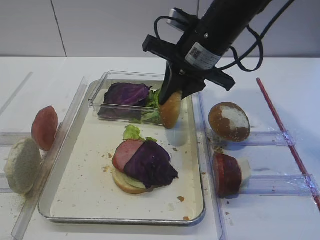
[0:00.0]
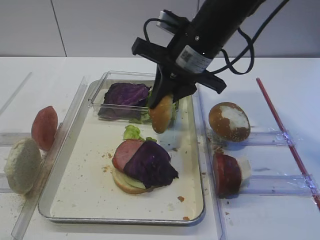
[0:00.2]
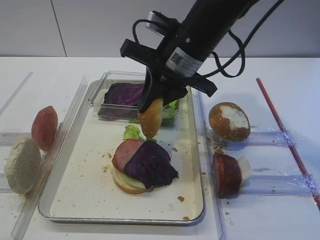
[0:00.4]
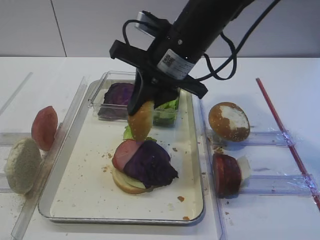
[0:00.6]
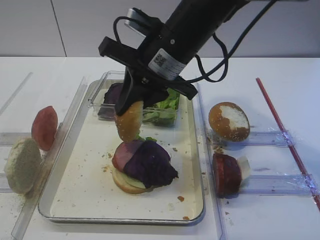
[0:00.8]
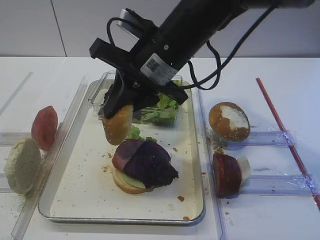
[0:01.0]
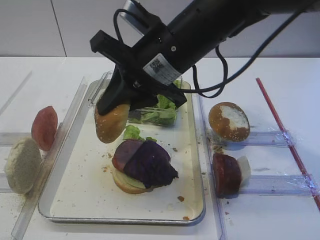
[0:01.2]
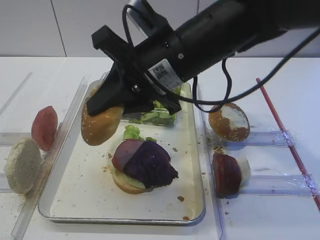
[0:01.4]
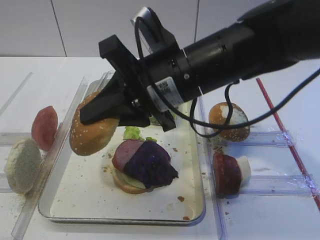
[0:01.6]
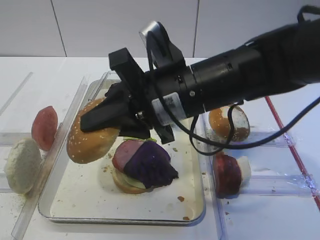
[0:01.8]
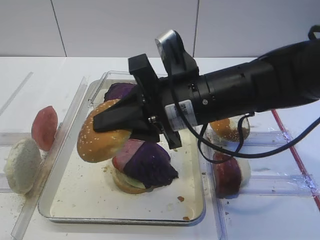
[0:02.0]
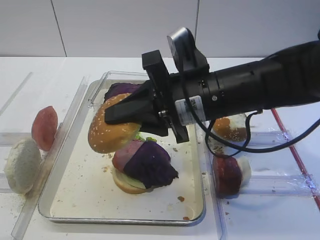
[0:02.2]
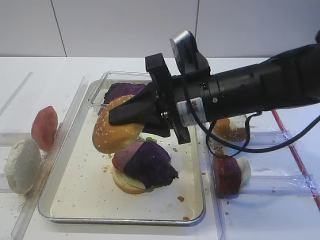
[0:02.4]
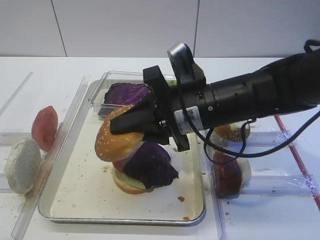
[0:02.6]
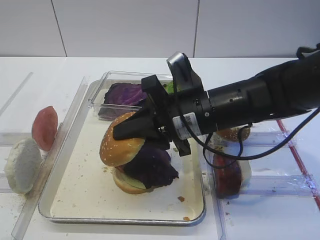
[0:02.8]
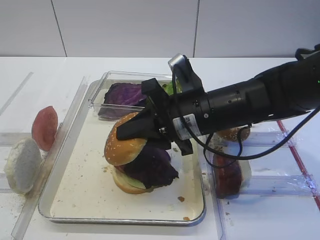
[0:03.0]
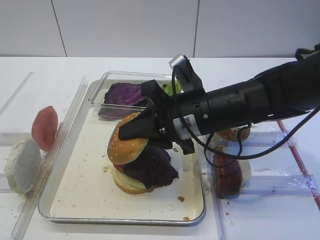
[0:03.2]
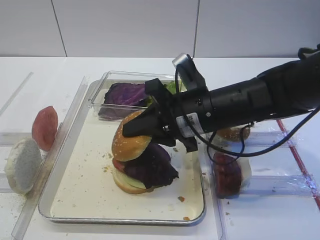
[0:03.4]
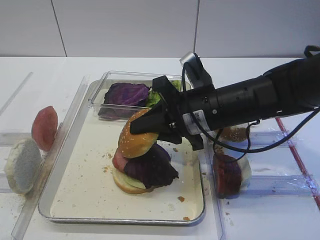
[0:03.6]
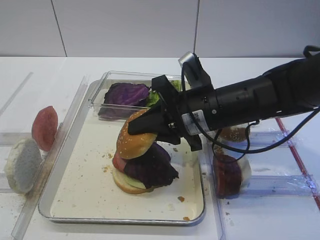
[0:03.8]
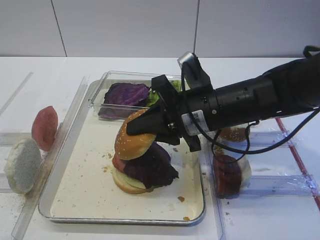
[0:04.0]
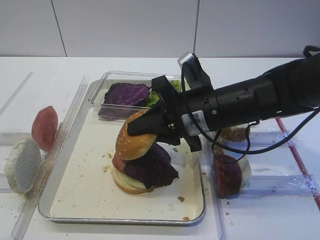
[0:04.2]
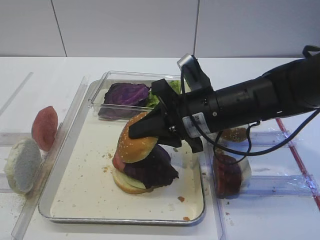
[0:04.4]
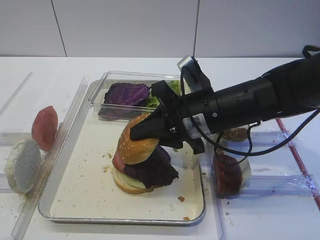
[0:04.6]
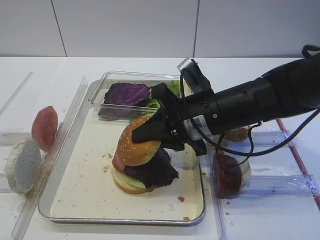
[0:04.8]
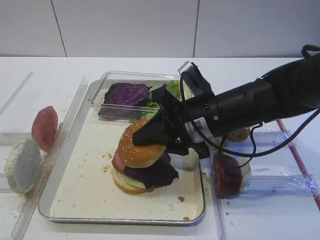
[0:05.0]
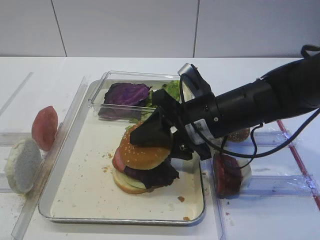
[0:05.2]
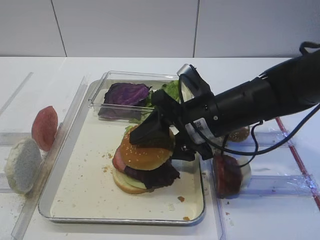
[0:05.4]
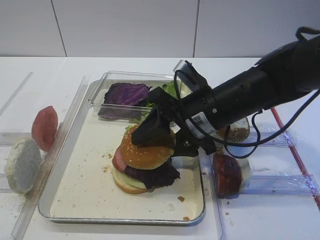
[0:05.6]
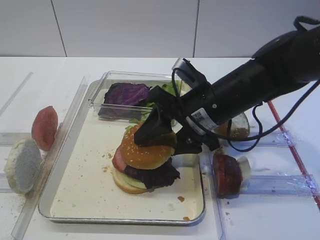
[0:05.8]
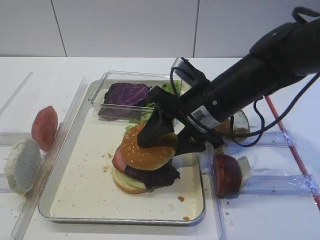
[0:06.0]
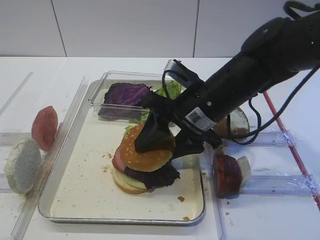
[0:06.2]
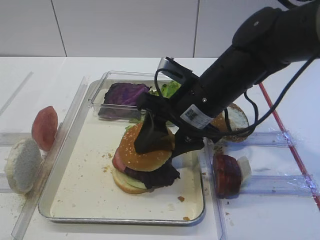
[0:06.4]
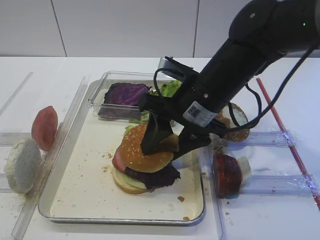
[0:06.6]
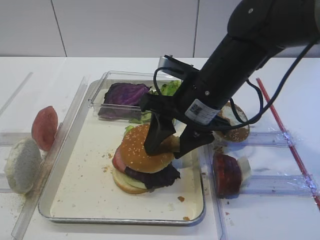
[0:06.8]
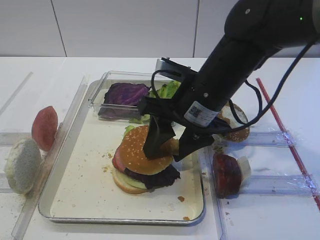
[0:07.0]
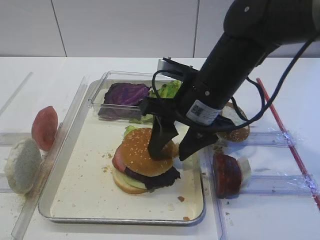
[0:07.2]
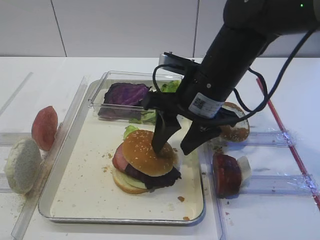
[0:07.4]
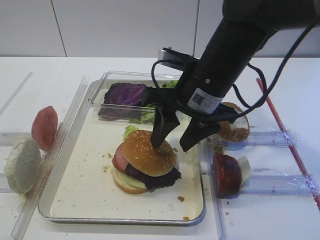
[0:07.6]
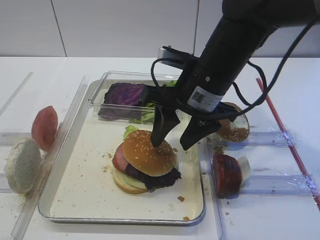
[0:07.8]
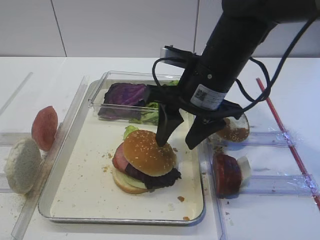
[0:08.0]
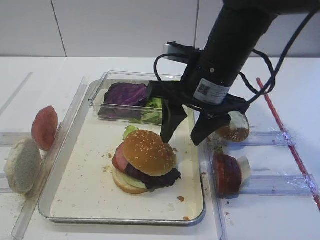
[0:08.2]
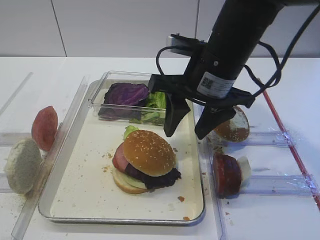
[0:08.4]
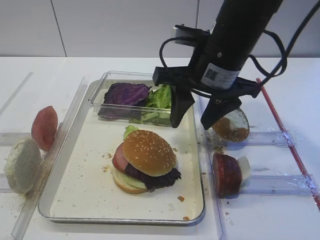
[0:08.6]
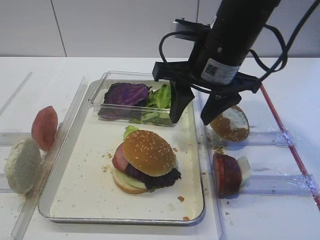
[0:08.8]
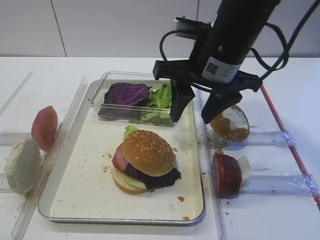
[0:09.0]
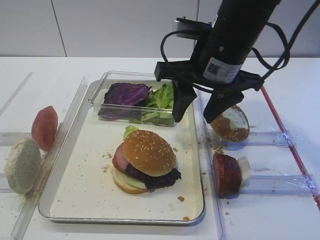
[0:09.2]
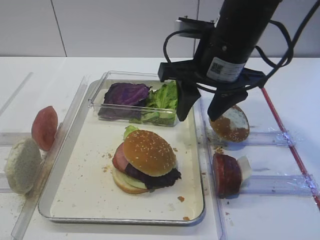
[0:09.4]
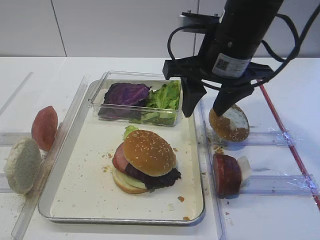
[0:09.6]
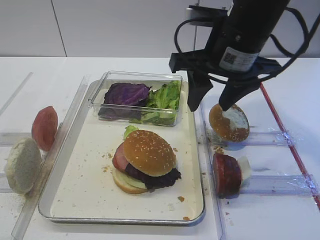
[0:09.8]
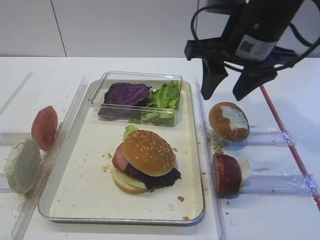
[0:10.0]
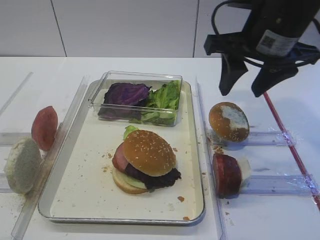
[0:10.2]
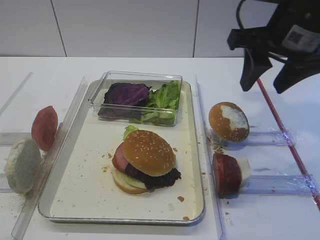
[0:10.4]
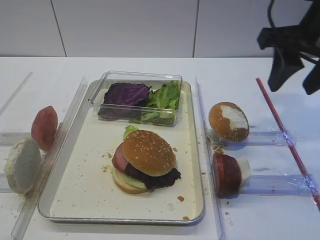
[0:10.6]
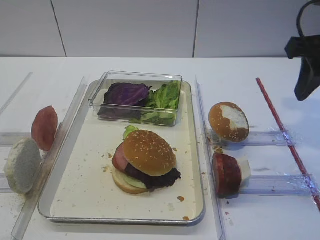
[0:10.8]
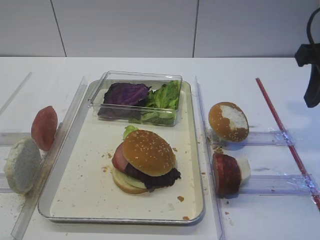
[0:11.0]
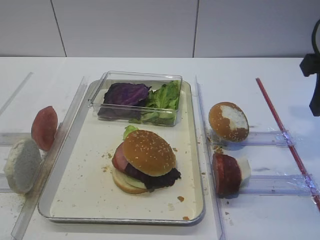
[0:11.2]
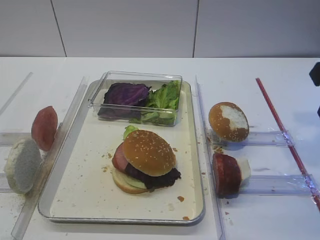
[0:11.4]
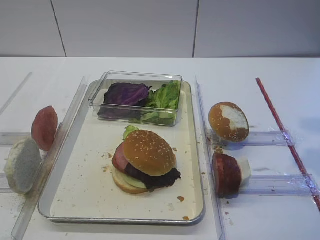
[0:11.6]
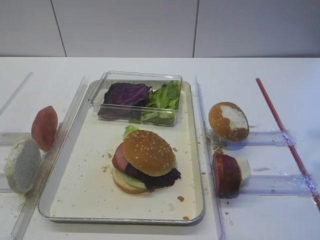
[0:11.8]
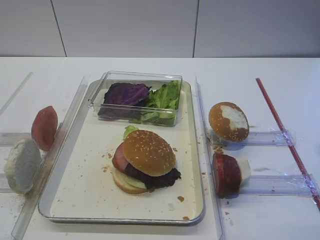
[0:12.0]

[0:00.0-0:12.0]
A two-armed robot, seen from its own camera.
Step, 0:00.0 to 0:08.8: Place the hamburger lid on the cheese slice with the right gripper.
0:00.0 to 0:01.6: The right gripper is displaced backward by some 10 cm.
0:01.6 to 0:03.0: The right gripper shifts about 10 cm downward.
0:03.0 to 0:04.4: There are only small adjustments of the grippers.
0:04.4 to 0:06.0: The right gripper opens.
0:07.6 to 0:09.0: The grippers move only a little.
0:09.0 to 0:10.4: The right gripper heads to the right, covering roughly 10 cm.
0:10.4 to 0:12.0: The right gripper is displaced backward and to the right by approximately 15 cm.

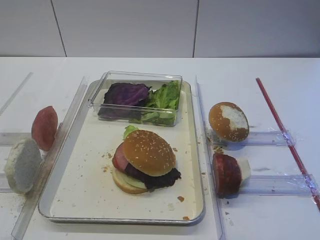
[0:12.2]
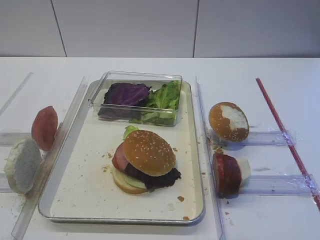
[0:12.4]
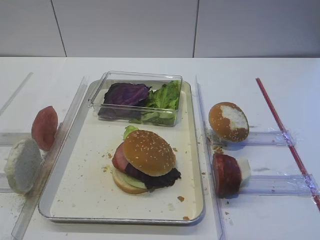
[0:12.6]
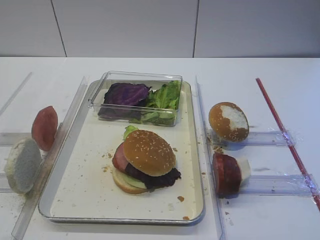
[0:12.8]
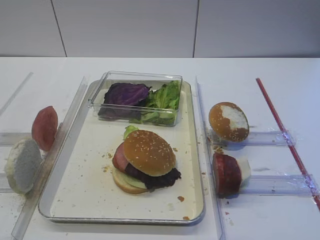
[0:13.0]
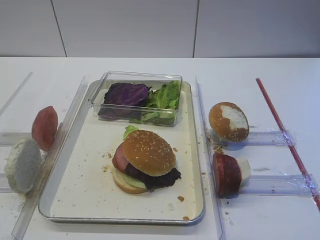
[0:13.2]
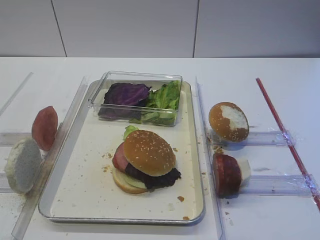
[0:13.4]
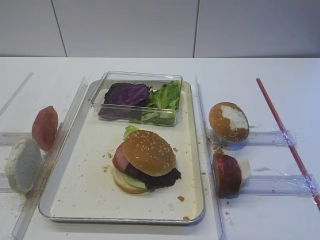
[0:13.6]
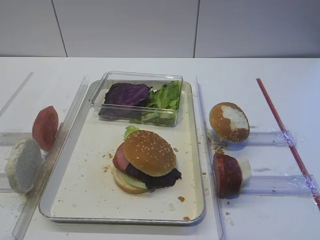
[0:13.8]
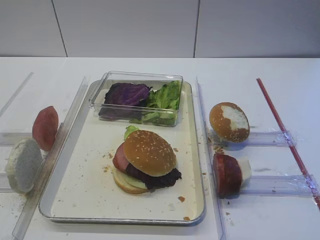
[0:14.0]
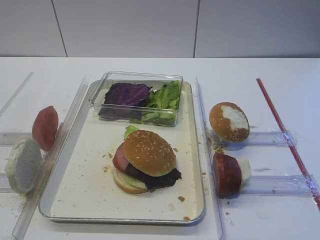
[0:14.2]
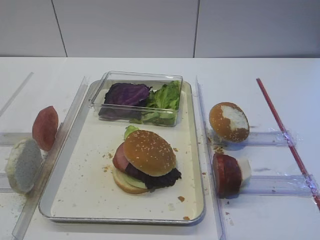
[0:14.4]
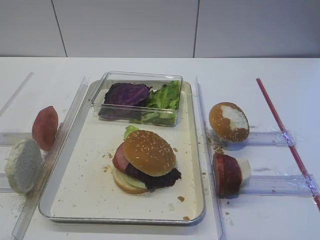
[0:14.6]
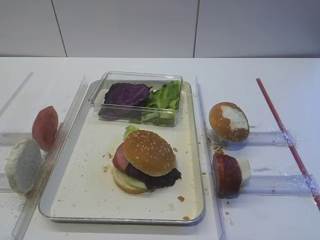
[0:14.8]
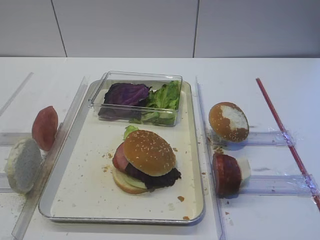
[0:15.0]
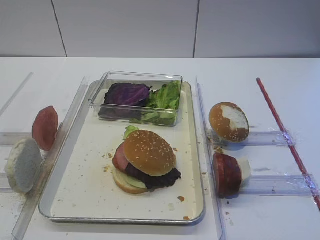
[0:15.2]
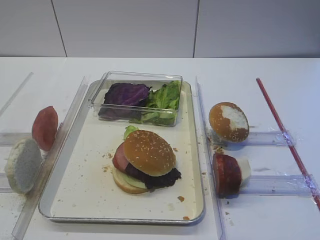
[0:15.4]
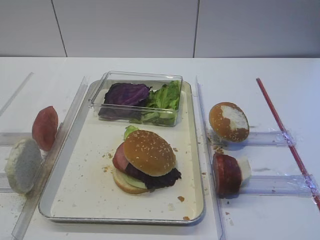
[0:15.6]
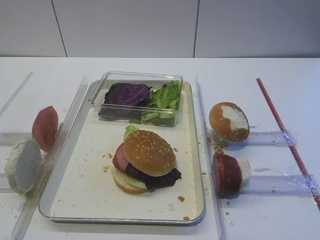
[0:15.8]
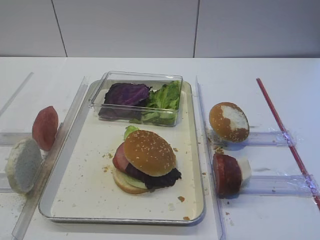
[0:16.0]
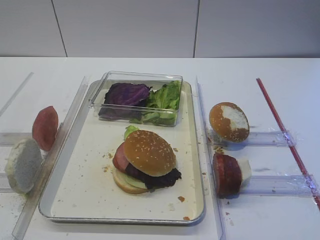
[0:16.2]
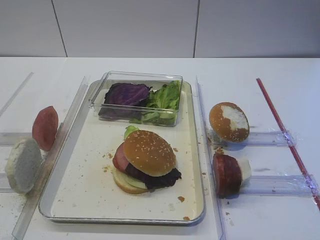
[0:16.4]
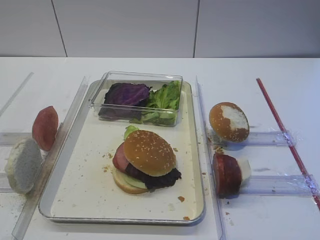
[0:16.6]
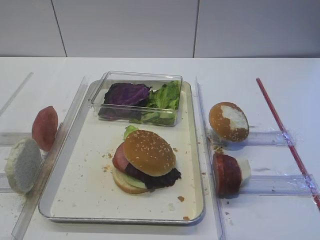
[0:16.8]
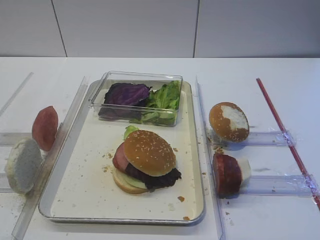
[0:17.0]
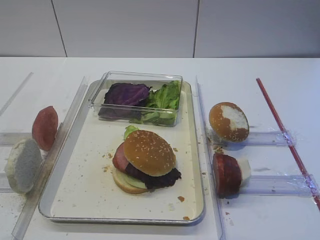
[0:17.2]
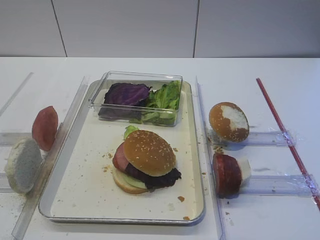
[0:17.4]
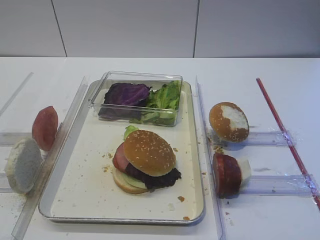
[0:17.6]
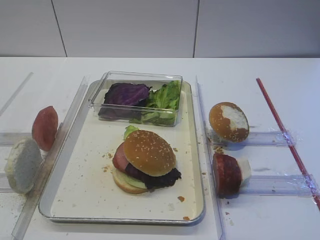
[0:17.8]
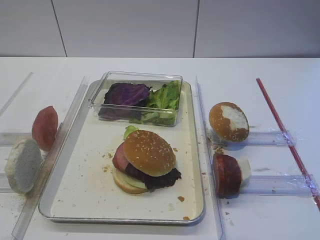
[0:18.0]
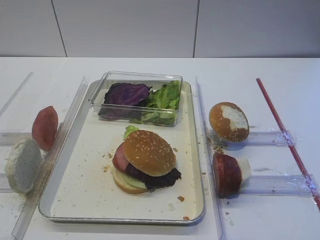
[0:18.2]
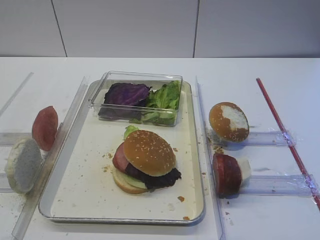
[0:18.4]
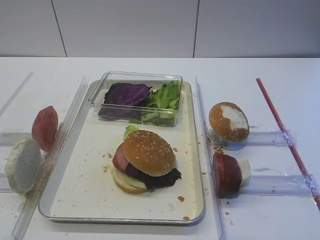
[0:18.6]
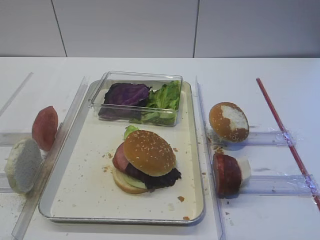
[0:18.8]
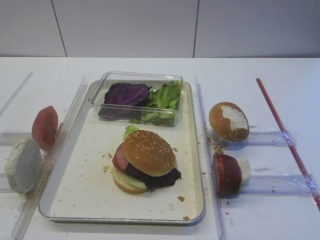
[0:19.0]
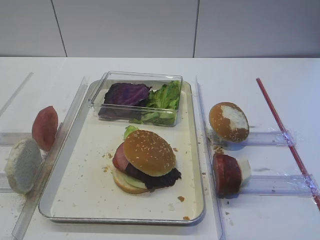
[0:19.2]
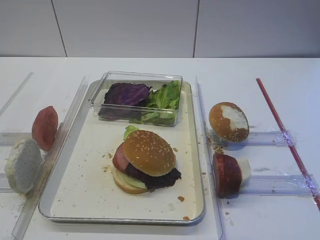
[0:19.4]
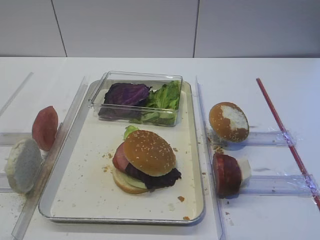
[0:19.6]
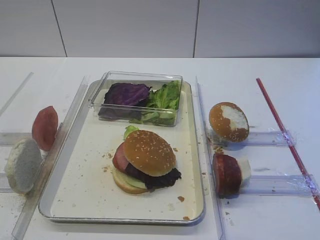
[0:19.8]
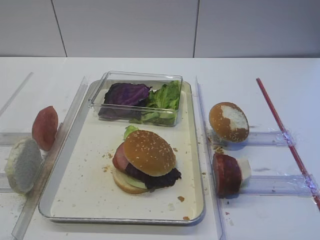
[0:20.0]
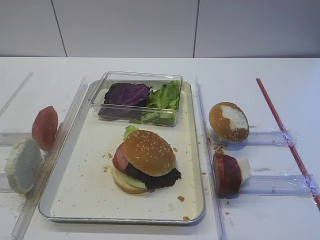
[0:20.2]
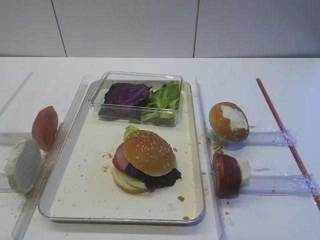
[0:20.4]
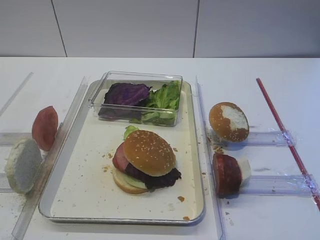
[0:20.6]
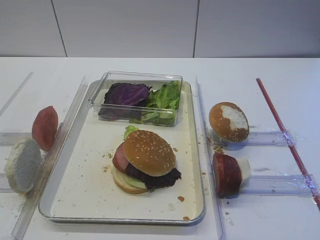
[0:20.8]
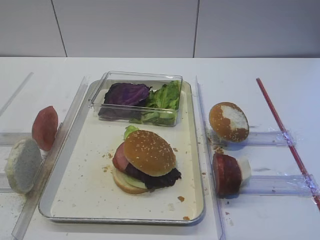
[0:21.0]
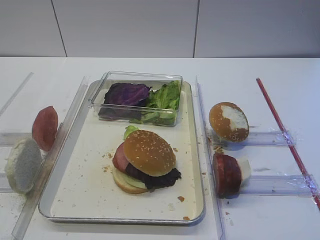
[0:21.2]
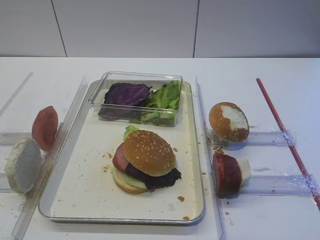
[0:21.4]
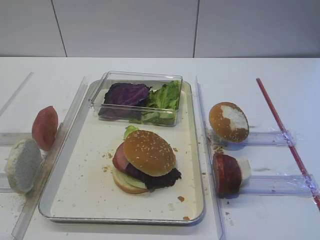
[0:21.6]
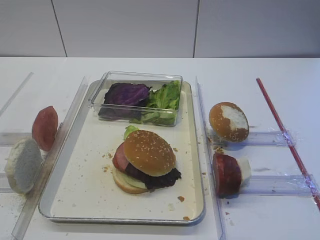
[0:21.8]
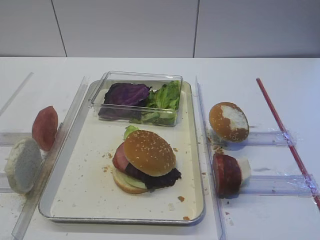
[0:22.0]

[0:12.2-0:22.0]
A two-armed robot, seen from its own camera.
0:13.6 to 0:22.0: Both grippers stay about where they are.

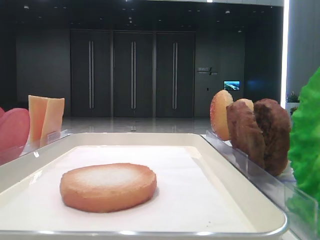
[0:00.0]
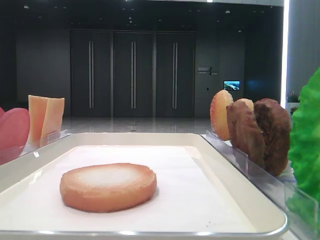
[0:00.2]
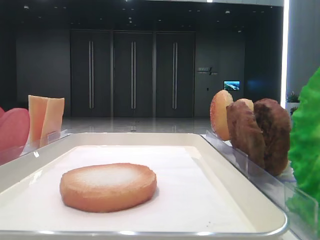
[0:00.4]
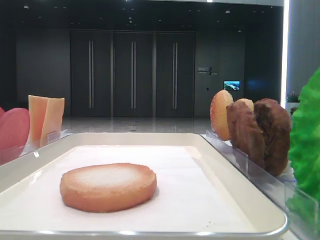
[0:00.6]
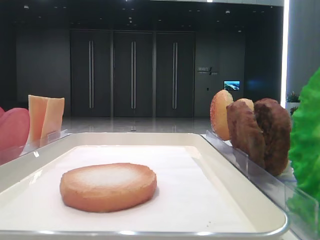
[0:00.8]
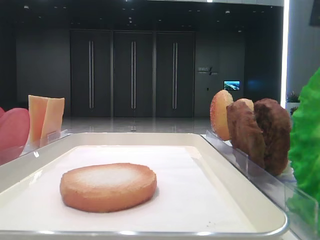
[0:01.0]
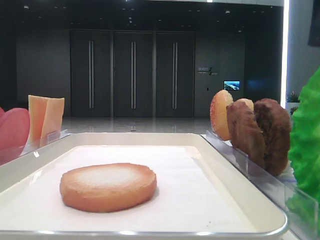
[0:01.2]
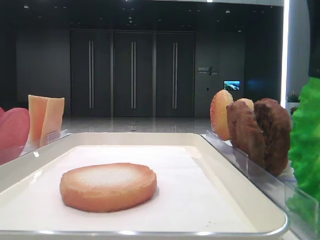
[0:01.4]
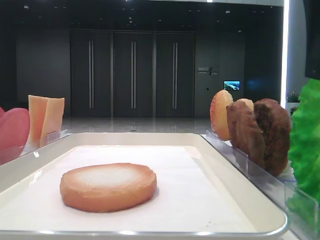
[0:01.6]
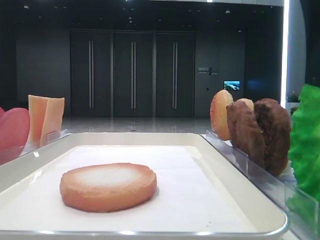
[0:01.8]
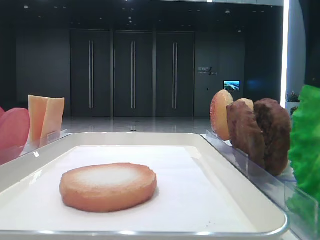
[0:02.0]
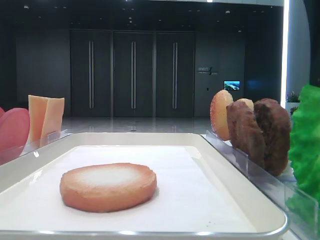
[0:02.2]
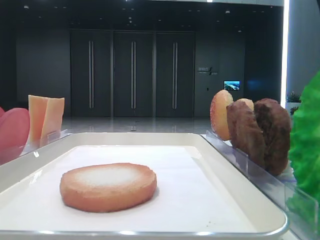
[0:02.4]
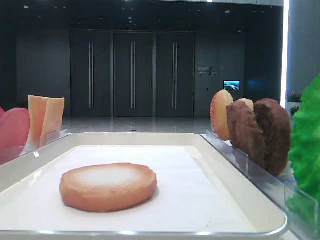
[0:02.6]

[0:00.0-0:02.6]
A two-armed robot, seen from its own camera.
Step, 0:00.0 to 0:02.6: Grab the lettuce leaf with the right hand.
0:01.2 to 0:02.6: The right gripper closes its fingers.
